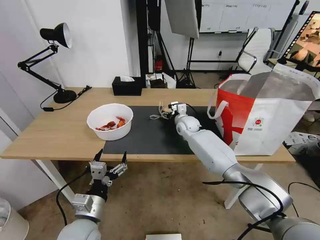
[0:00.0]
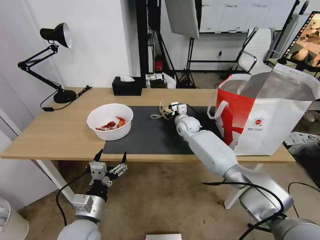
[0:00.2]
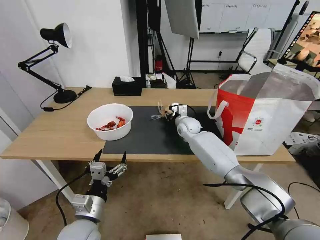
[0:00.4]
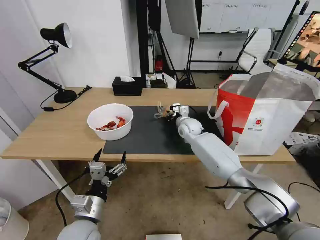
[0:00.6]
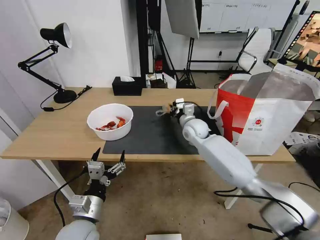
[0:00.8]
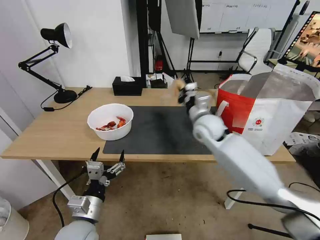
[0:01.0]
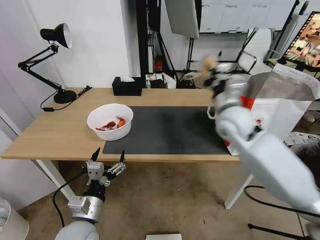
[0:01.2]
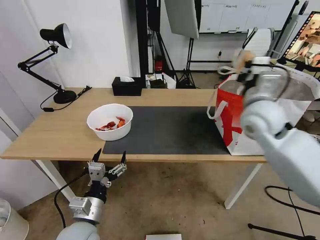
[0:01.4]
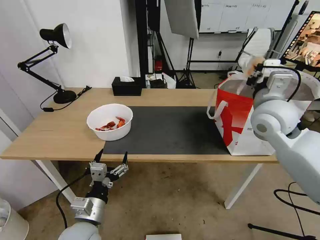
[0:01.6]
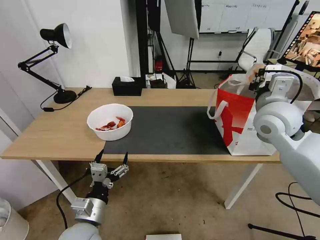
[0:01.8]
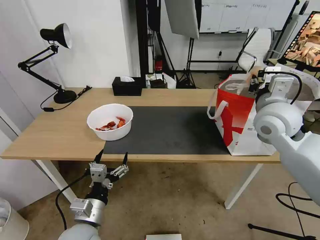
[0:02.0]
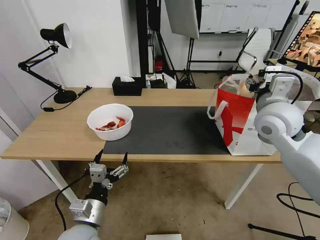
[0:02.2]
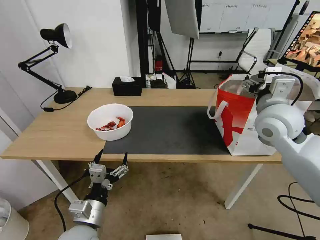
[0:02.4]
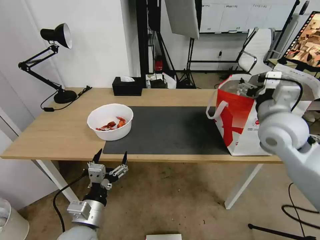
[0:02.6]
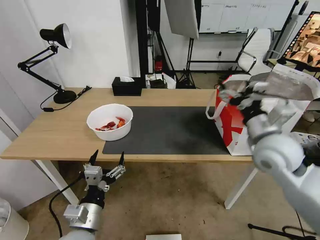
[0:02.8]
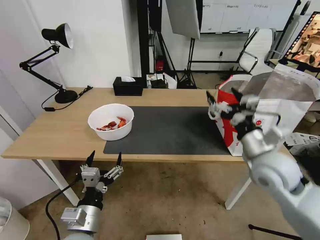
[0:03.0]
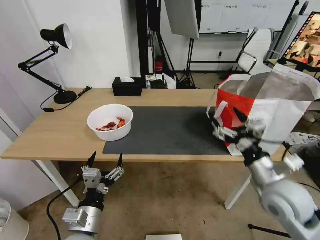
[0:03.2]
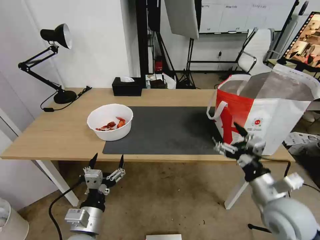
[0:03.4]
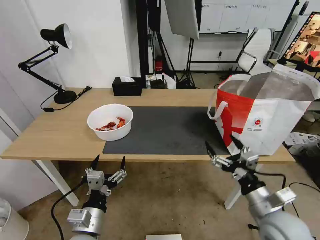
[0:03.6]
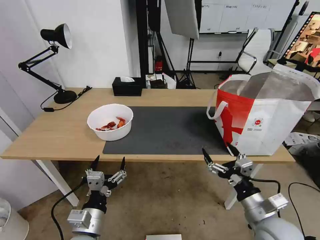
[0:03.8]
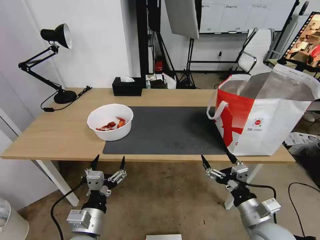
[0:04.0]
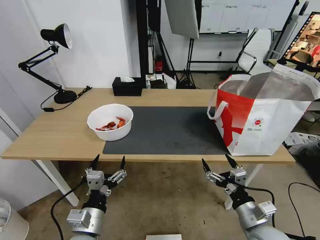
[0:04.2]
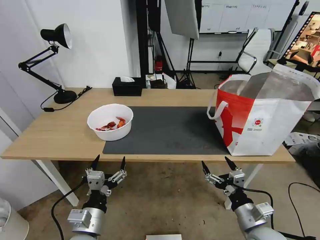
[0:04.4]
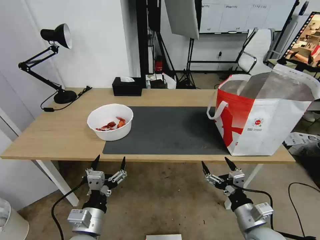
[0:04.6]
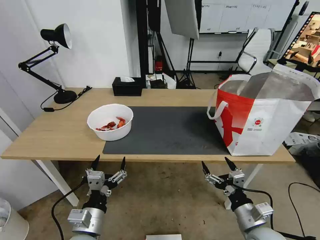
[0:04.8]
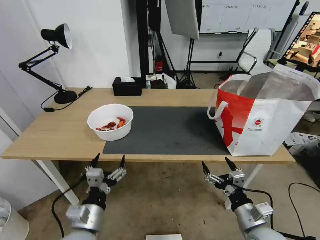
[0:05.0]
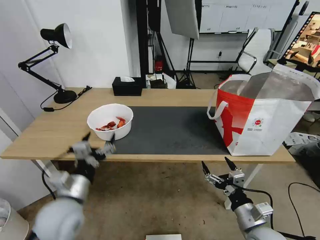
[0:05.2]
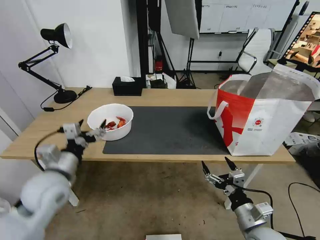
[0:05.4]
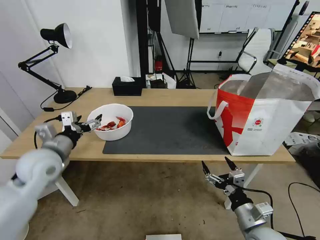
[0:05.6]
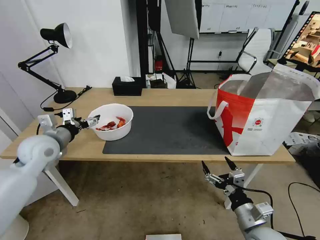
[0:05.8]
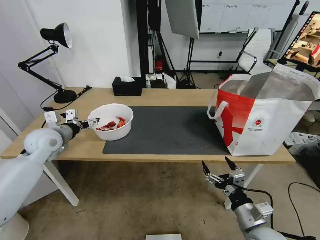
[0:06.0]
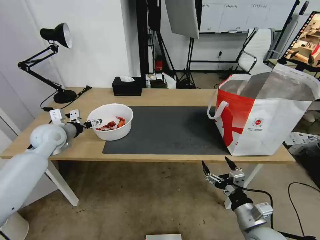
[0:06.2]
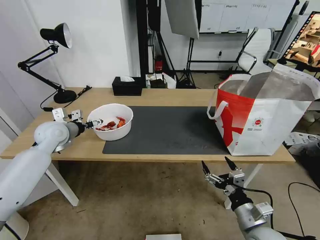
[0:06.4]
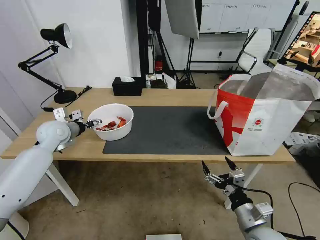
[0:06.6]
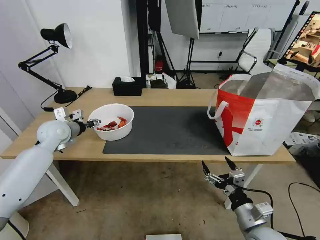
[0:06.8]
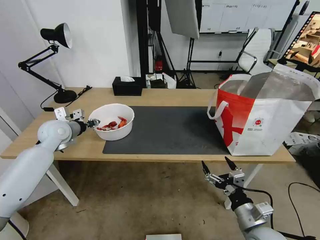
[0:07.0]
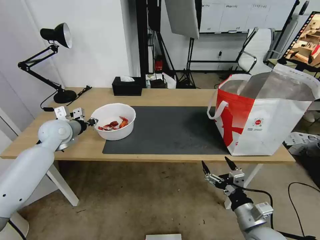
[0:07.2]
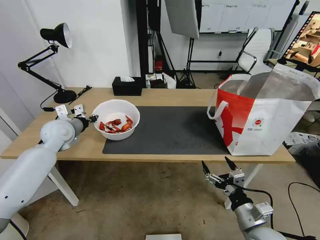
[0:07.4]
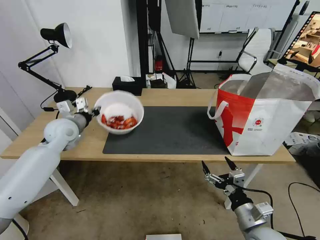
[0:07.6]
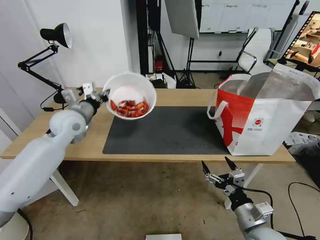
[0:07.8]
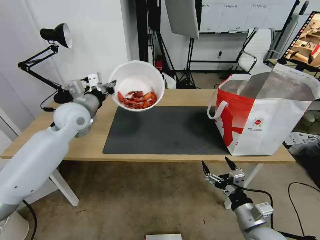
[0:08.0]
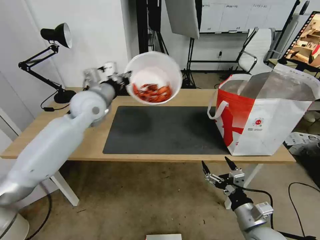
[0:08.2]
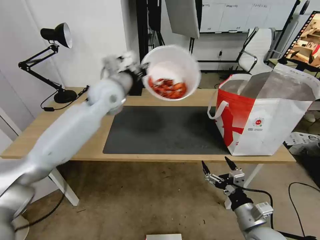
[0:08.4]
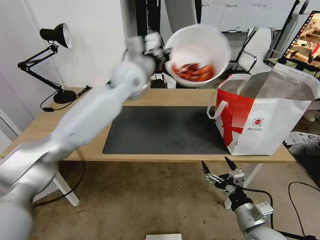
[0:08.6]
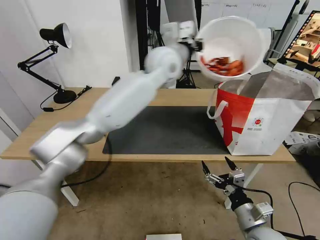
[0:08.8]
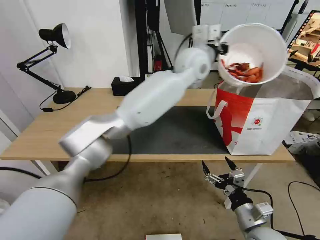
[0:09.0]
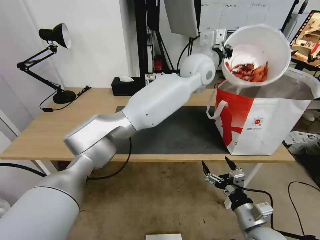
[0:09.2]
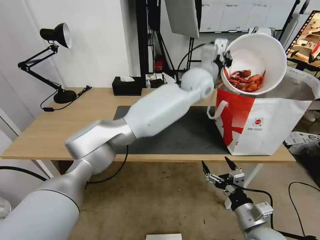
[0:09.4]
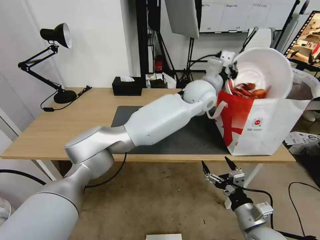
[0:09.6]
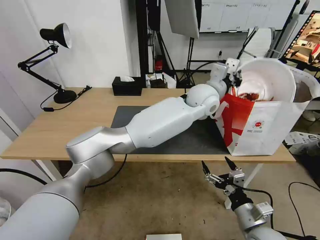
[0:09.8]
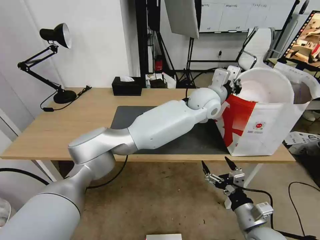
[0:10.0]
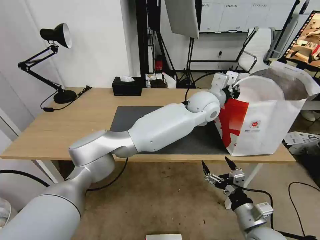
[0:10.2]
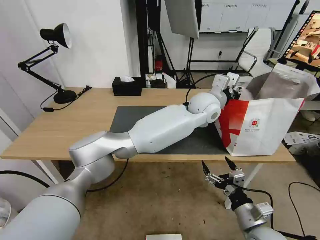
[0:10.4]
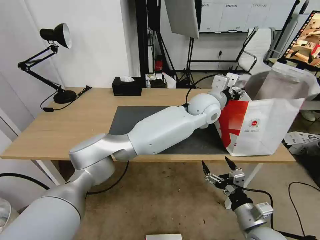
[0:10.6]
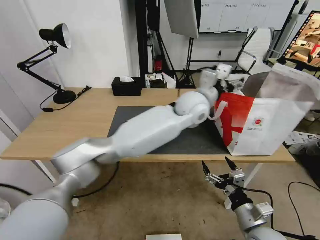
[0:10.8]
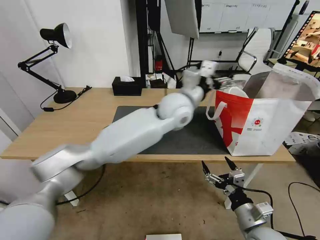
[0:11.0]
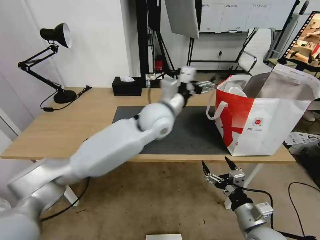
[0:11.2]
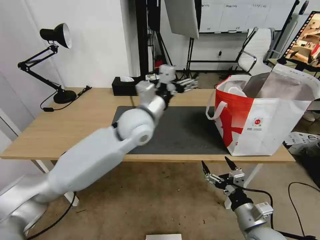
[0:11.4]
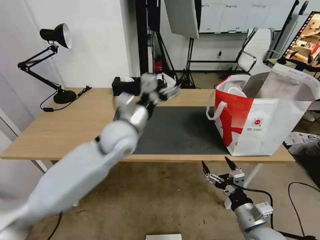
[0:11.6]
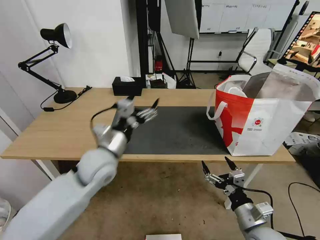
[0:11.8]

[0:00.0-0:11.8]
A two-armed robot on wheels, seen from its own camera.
Task of the whole recording: Pick up the trash from the table and place it into the takeout bag.
0:00.0 to 0:01.4: The right gripper travels upward, backward and to the right by roughly 30 cm, and closes up.
0:01.4 to 0:03.0: The right gripper is displaced backward and downward by roughly 15 cm, and opens its fingers.
0:03.0 to 0:04.4: The right gripper travels downward and backward by approximately 20 cm.
0:04.4 to 0:06.0: The left gripper heads forward, to the left and upward, covering roughly 35 cm.
0:06.0 to 0:07.4: The left gripper is displaced forward by about 5 cm, and closes its fingers.
0:07.4 to 0:08.8: The left gripper goes some 40 cm to the right and upward.
0:08.8 to 0:10.4: The left gripper moves to the right and downward, about 15 cm, and opens up.
0:10.4 to 0:11.8: The left gripper moves to the left and backward, roughly 35 cm, and opens its fingers.

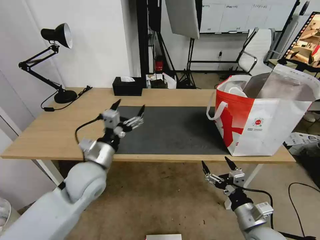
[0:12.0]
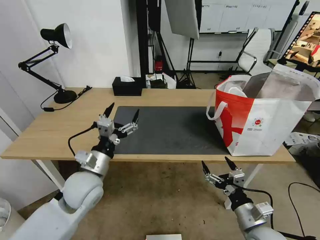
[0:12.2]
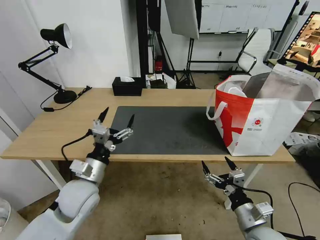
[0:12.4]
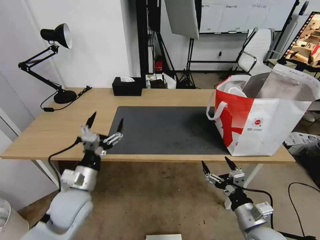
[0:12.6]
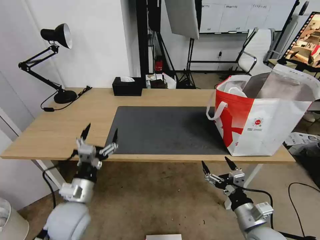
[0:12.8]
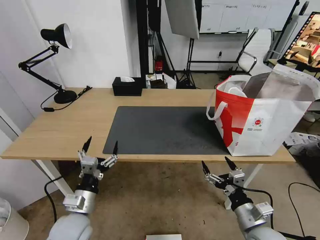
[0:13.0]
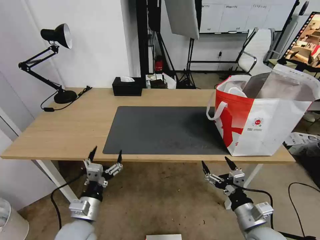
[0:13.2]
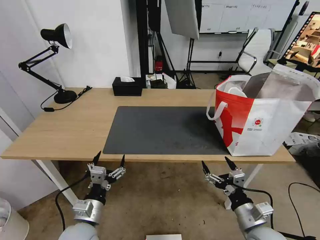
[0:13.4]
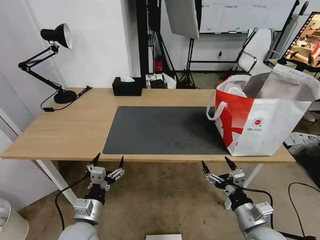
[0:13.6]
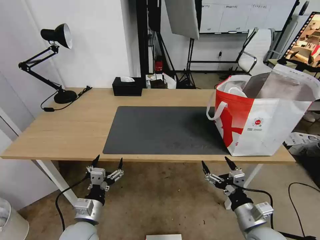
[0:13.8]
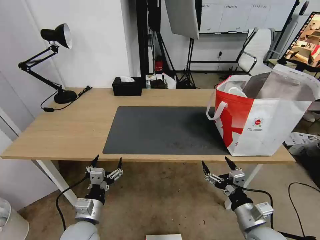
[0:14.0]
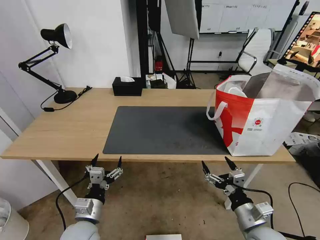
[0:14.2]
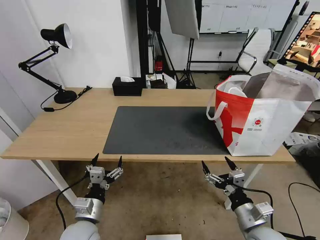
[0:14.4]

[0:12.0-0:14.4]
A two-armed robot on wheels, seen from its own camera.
Task of the whole recording: Pick up the trash from the table and place it into the takeout bag.
0:12.0 to 0:13.2: The left gripper shifts some 15 cm downward and backward.
0:13.2 to 0:14.4: The grippers move only a little.
